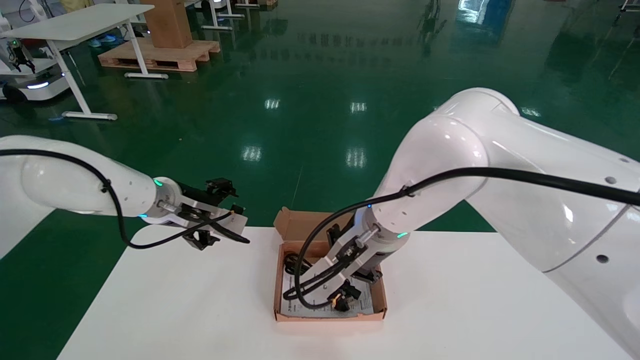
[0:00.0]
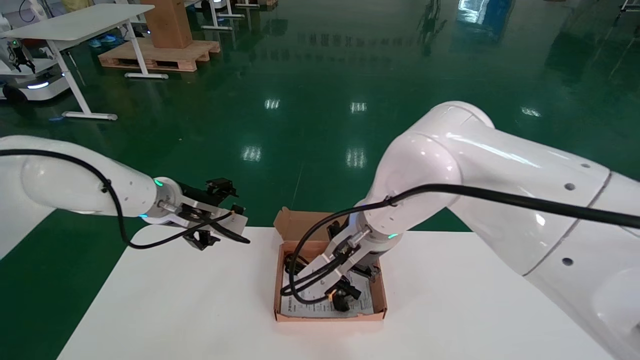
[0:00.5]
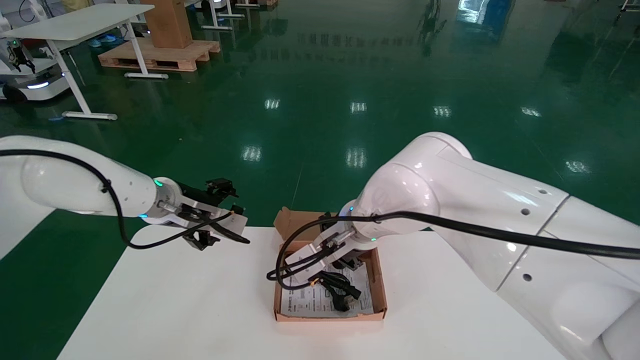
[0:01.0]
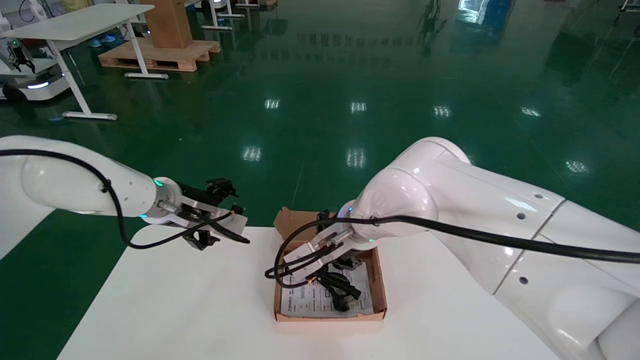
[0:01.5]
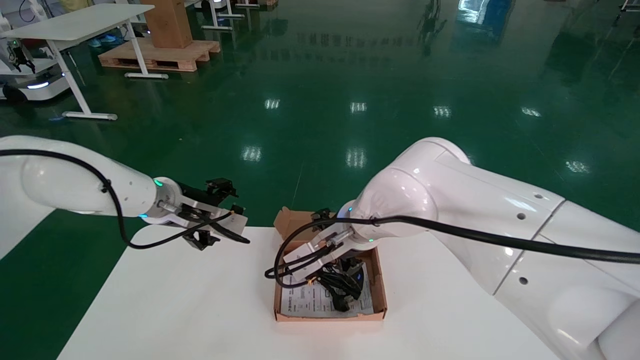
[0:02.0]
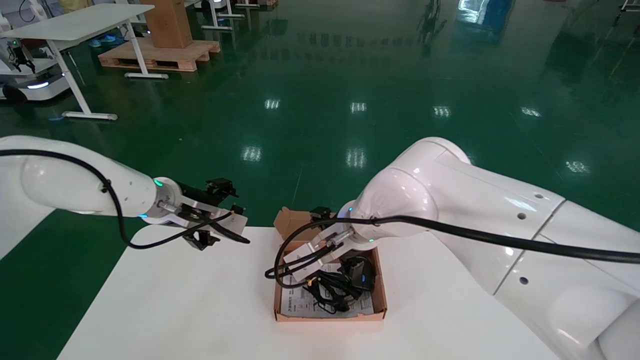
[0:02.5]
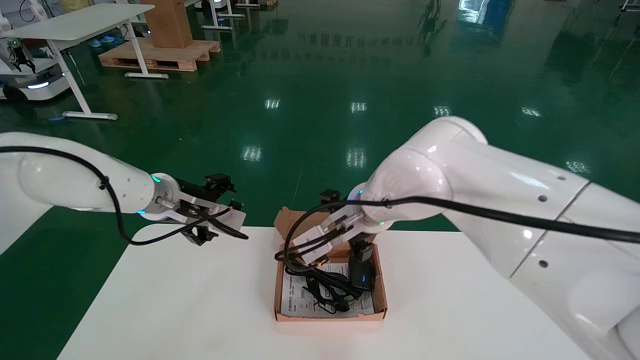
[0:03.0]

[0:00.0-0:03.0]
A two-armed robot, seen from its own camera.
Step, 0:00.0 to 0:02.5: Place the mouse and power cord into the box.
0:00.0 to 0:01.5: The right gripper travels downward by about 5 cm.
0:01.5 to 0:03.0: The right gripper opens up.
